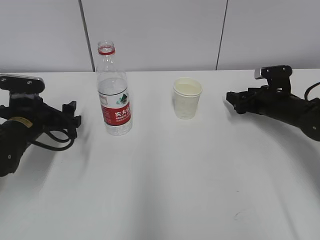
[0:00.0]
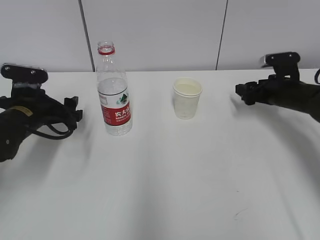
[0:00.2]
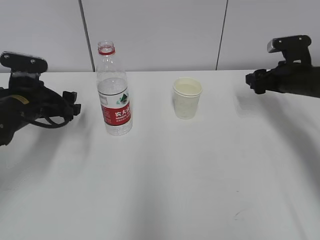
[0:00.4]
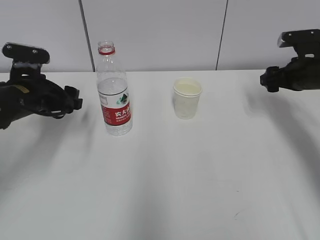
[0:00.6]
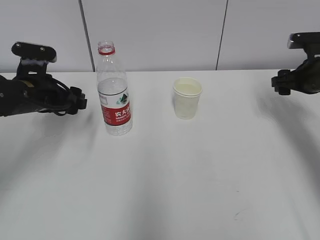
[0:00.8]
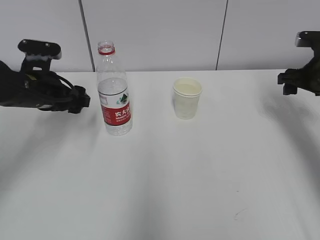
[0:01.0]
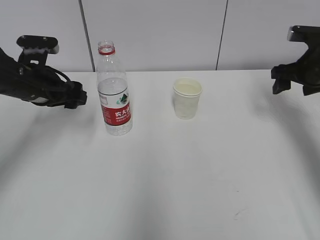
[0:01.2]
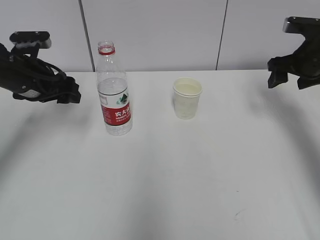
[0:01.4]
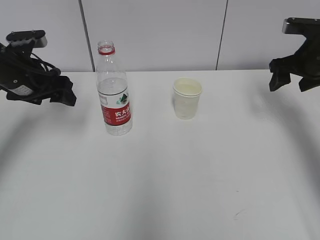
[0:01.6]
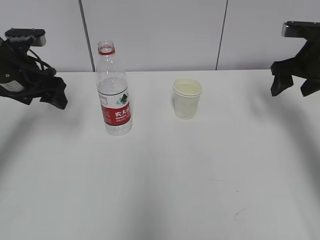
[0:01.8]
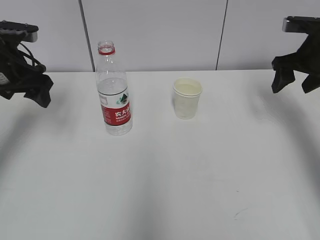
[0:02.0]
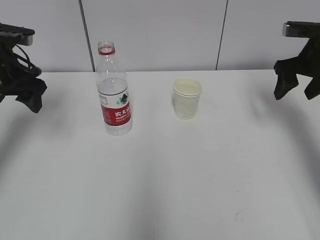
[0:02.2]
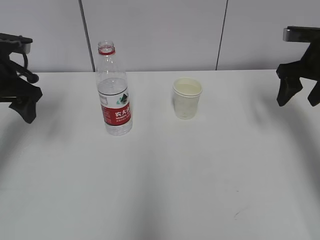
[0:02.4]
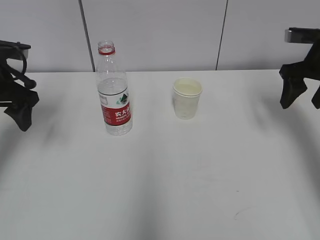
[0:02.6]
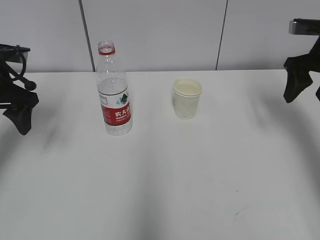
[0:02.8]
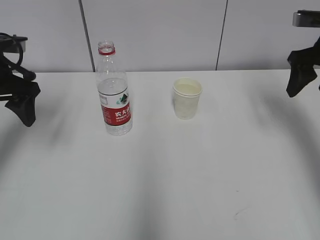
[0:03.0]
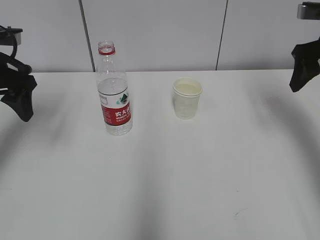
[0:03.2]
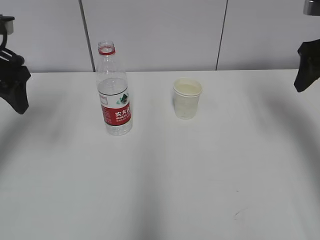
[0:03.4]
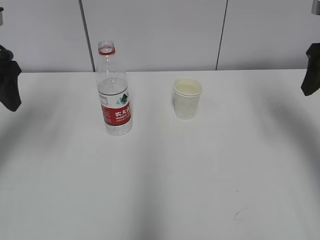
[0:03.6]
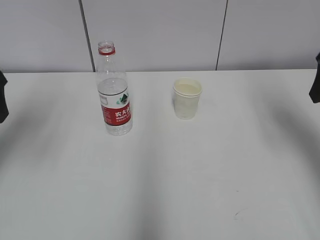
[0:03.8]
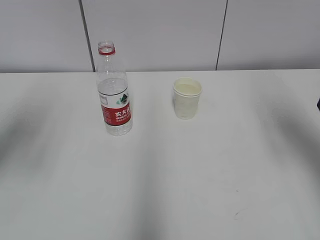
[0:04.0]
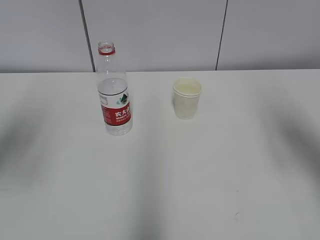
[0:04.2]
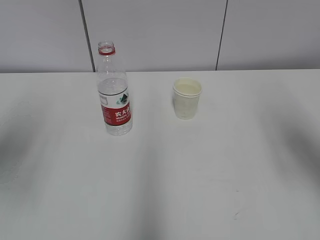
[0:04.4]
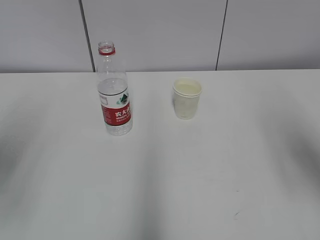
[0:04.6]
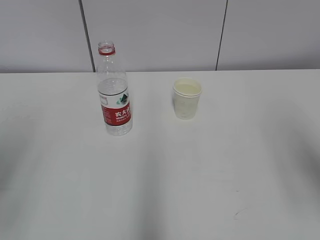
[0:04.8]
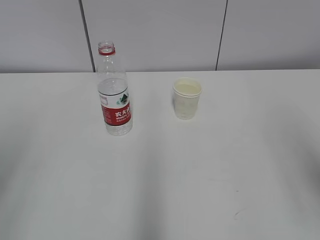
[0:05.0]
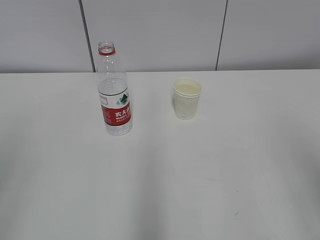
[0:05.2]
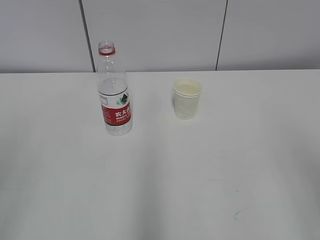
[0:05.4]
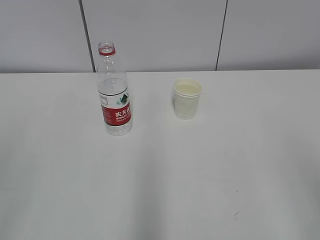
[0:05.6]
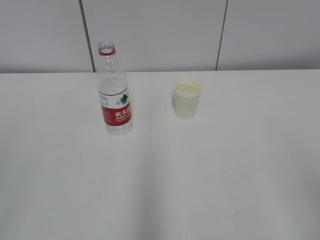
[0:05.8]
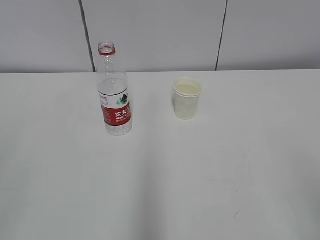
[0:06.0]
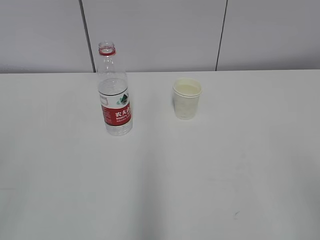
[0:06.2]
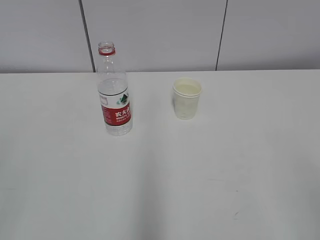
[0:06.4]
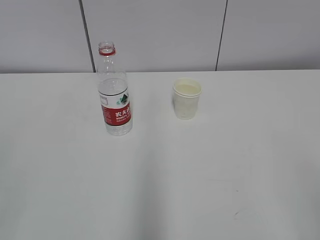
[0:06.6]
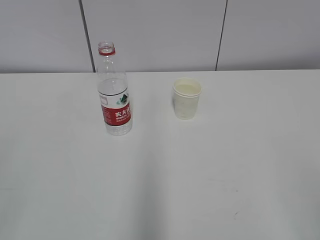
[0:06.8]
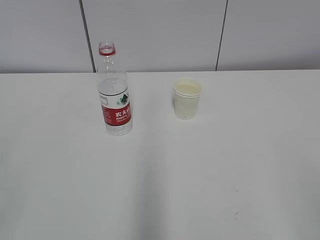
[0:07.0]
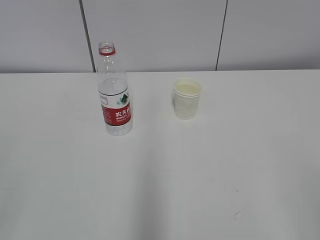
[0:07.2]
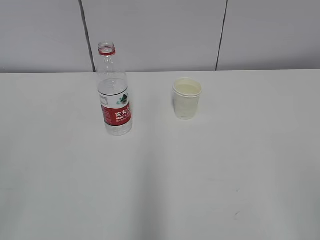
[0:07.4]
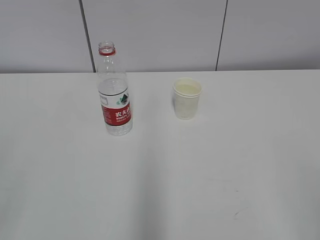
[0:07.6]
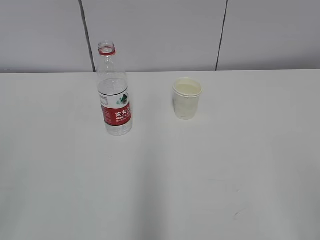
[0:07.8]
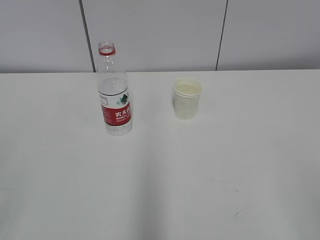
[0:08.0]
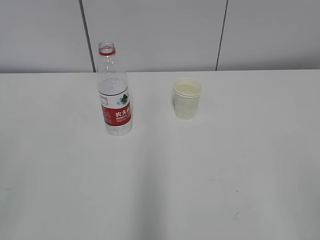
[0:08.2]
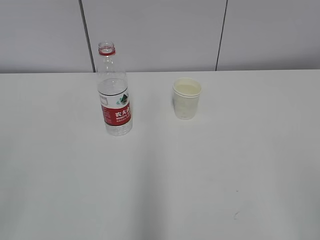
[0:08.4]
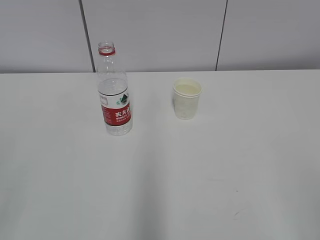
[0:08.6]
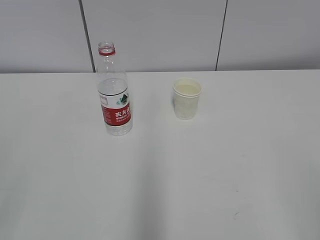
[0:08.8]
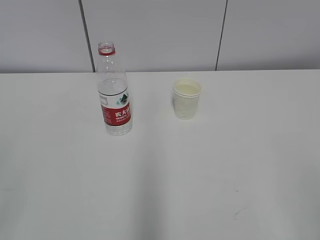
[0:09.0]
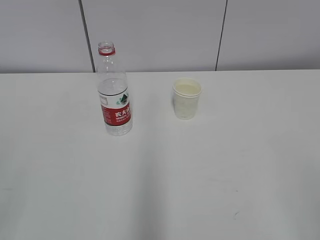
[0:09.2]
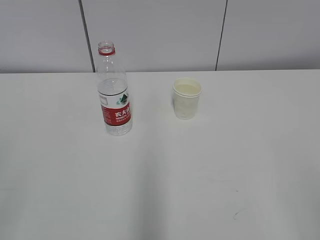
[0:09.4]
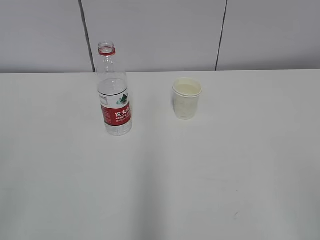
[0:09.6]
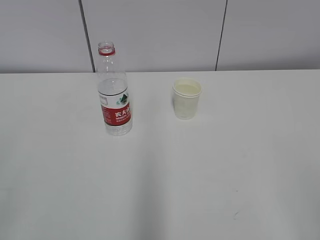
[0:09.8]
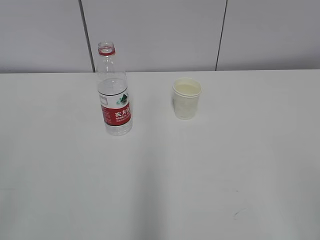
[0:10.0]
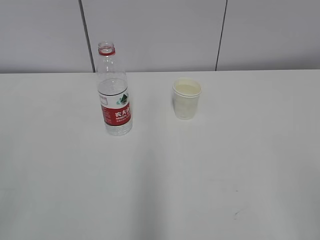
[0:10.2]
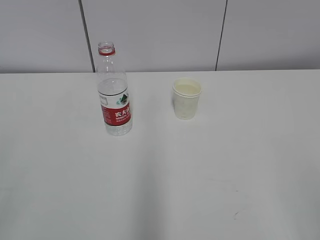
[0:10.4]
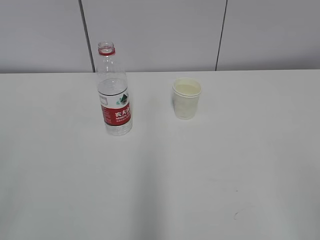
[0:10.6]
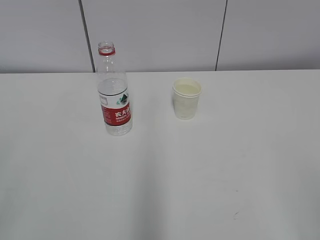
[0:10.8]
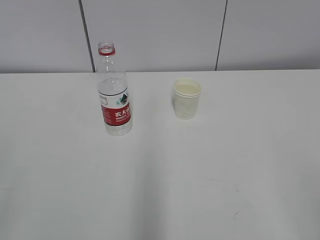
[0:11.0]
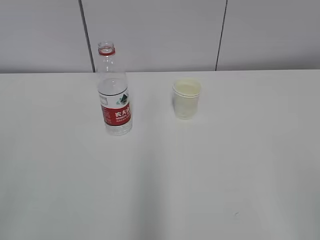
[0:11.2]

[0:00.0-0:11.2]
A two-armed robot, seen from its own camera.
0:00.0 to 0:01.6: Both grippers move upward, about 15 cm.
0:01.6 to 0:03.2: The grippers both shift upward by about 5 cm.
0:03.2 to 0:04.8: The grippers both shift backward by approximately 20 cm.
0:04.8 to 0:06.4: The right gripper heads backward and downward, covering approximately 15 cm. Meanwhile the left gripper travels backward by roughly 15 cm.
0:08.0 to 0:11.2: The two grippers keep their place.

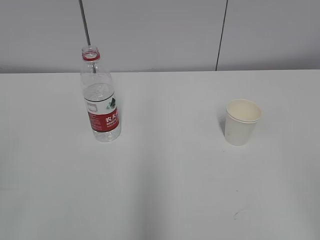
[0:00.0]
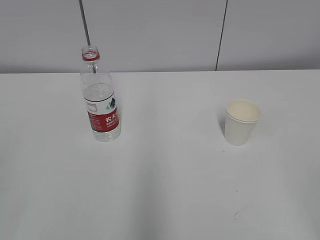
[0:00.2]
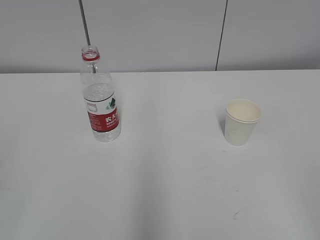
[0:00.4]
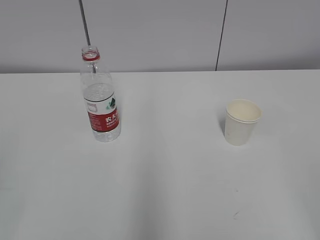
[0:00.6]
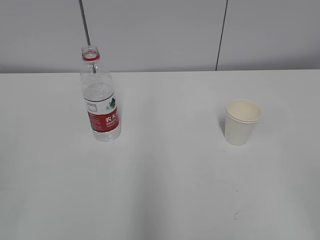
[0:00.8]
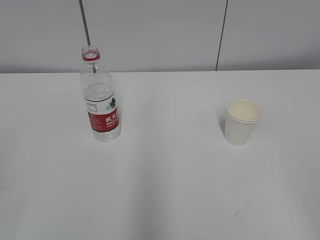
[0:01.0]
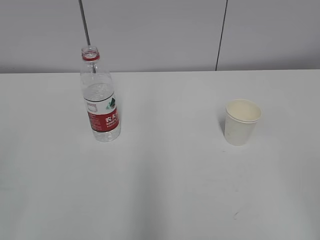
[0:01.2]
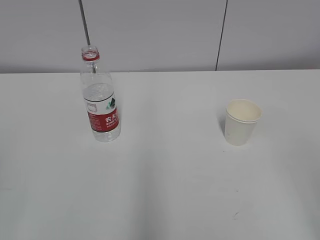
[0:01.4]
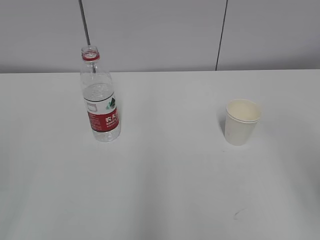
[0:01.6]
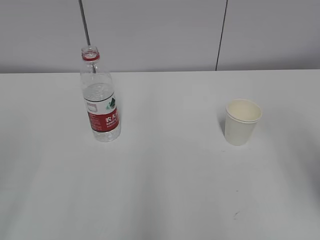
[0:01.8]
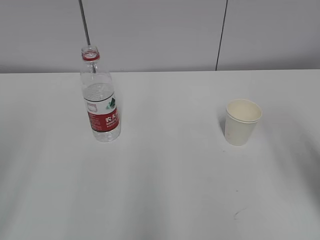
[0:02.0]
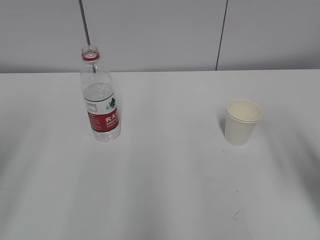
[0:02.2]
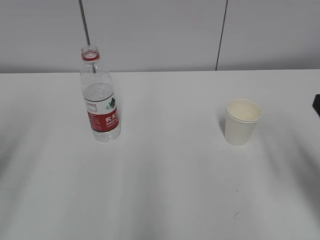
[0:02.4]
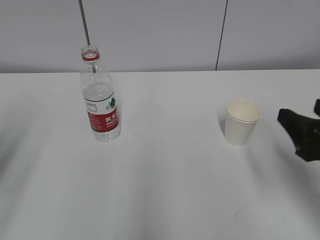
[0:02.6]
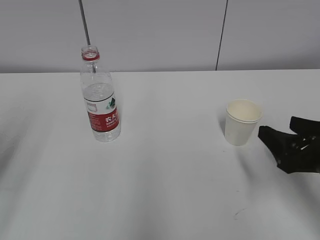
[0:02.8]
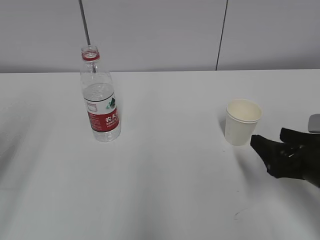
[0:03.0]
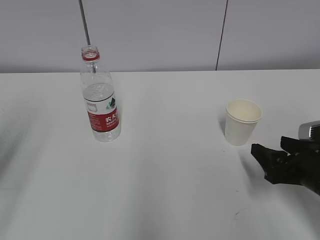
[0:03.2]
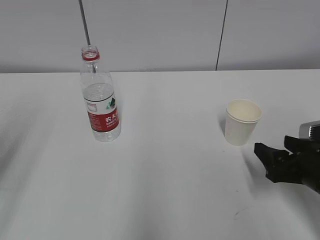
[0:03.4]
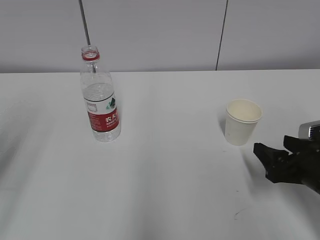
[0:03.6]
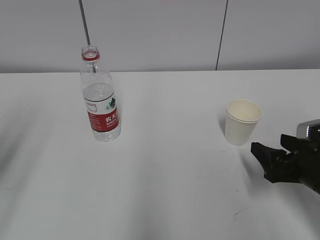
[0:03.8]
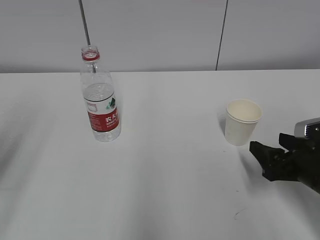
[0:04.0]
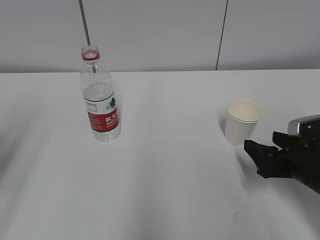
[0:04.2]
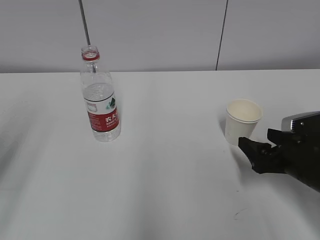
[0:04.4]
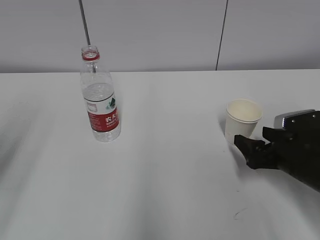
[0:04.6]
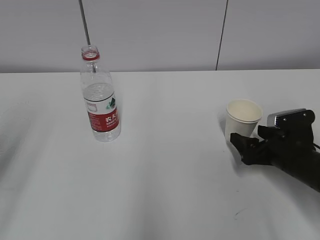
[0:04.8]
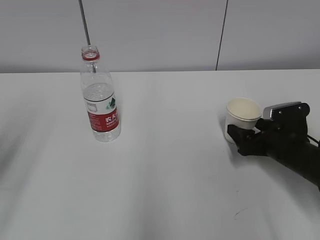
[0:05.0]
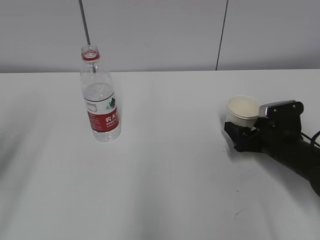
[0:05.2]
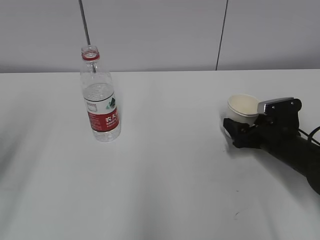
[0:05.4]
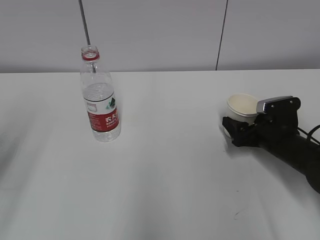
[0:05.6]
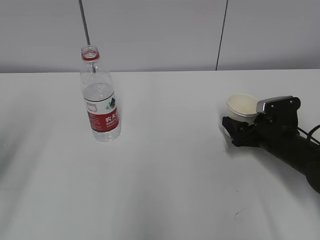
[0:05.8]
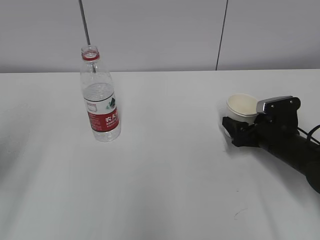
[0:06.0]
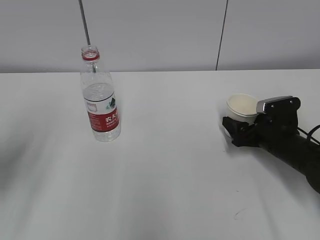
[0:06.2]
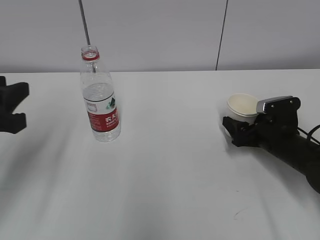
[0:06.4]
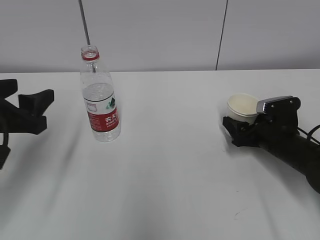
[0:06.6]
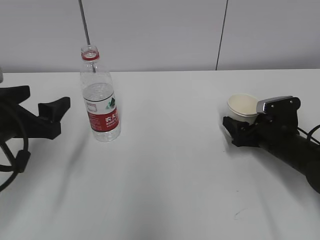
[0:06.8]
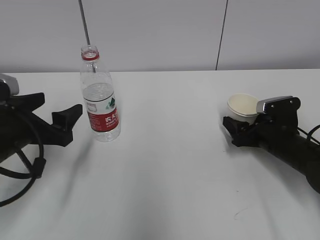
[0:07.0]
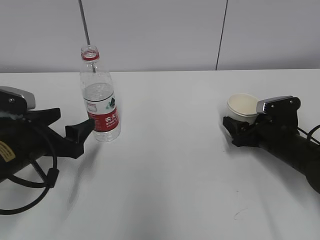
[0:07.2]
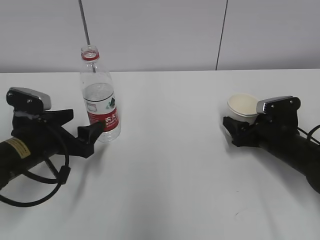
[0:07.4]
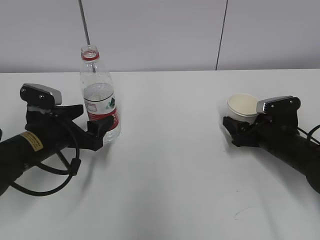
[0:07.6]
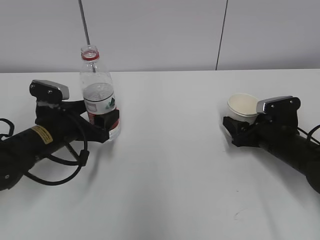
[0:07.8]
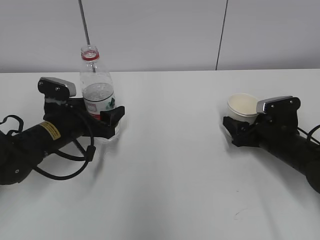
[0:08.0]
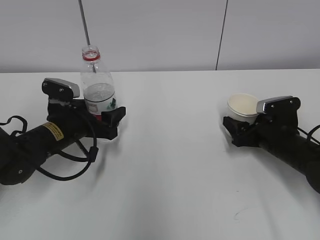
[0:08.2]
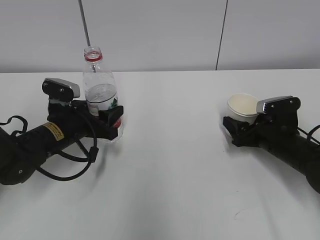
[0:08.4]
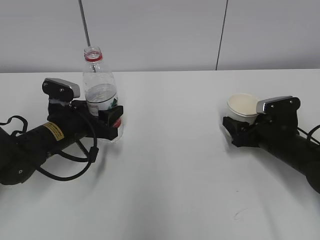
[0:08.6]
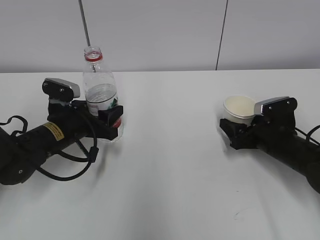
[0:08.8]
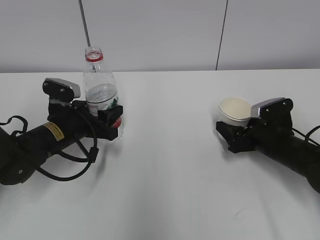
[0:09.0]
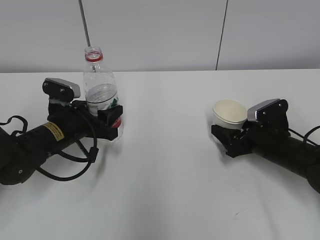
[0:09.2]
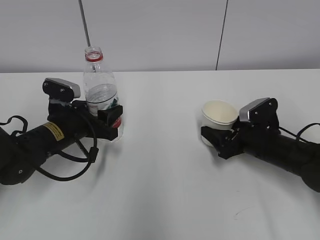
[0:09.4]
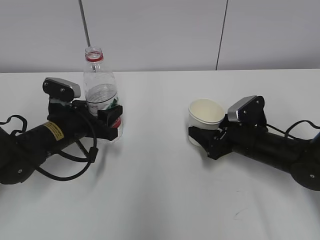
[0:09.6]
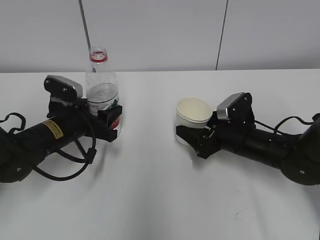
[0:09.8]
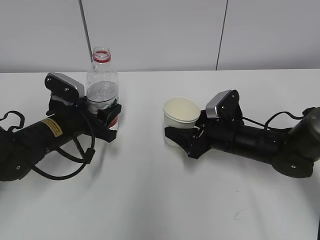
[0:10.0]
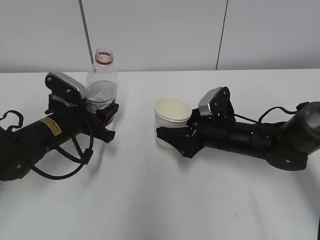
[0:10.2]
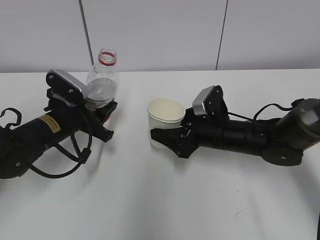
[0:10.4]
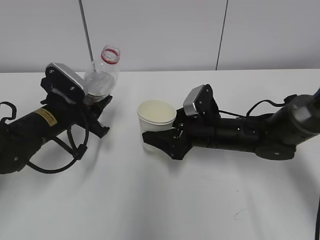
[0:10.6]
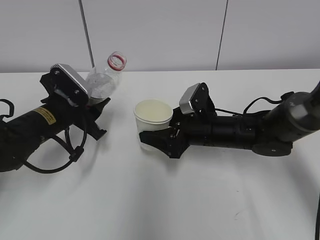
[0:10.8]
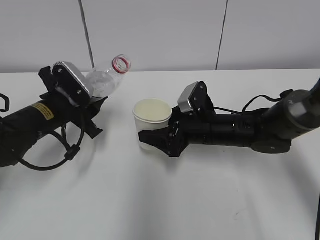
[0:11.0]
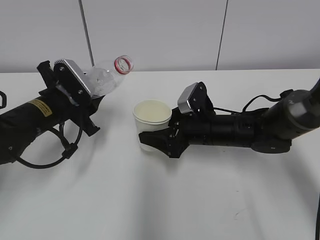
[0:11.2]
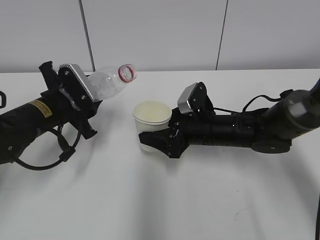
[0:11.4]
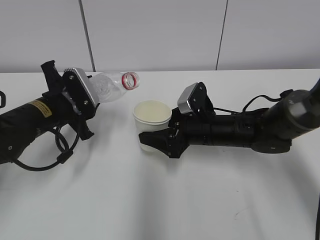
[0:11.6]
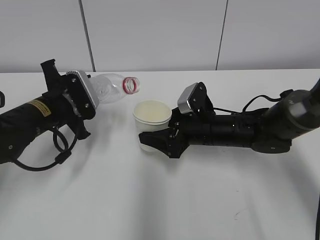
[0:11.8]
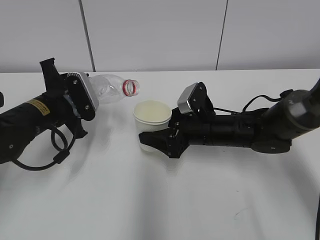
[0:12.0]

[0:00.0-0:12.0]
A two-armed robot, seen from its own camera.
Step, 0:00.0 to 0:07.2: Grab the paper cup with the right hand.
Step, 0:07.4 to 0:08.0: Grab the water bottle with the left hand.
Step, 0:08.2 to 0:11.2: Lift the paper cup with the right hand.
0:01.6 to 0:03.0: The right gripper moves downward and forward, roughly 25 cm; the left gripper goes some 15 cm forward.
0:03.0 to 0:04.4: There are only small adjustments of the grippers.
0:04.4 to 0:06.0: The right gripper is displaced forward by roughly 10 cm.
0:06.0 to 0:07.6: The left gripper travels downward, forward and to the right by some 25 cm, and opens its fingers.
0:07.6 to 0:09.0: The left gripper closes its fingers.
0:09.0 to 0:10.4: The right gripper is displaced to the left by some 10 cm.
